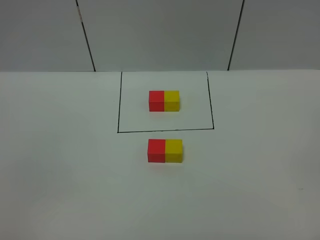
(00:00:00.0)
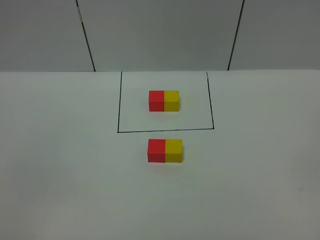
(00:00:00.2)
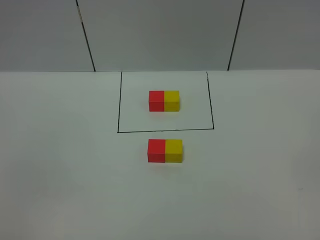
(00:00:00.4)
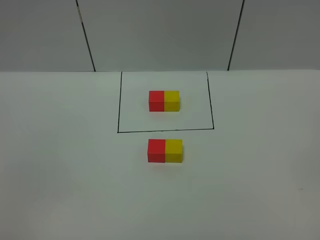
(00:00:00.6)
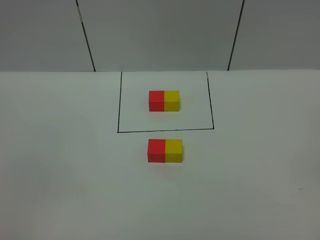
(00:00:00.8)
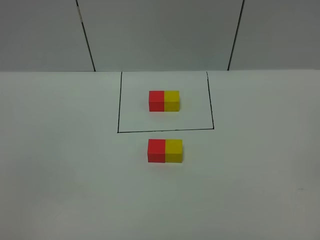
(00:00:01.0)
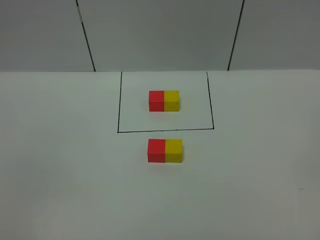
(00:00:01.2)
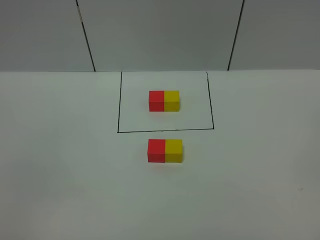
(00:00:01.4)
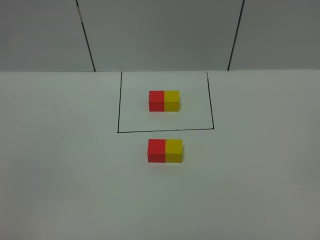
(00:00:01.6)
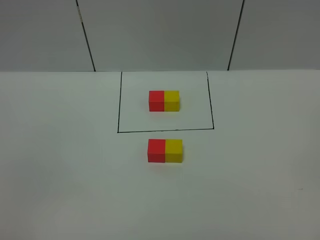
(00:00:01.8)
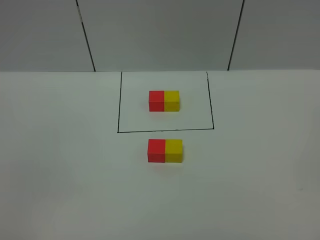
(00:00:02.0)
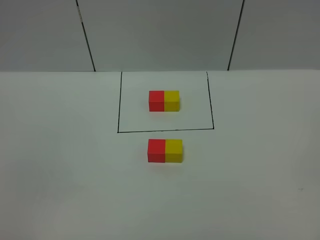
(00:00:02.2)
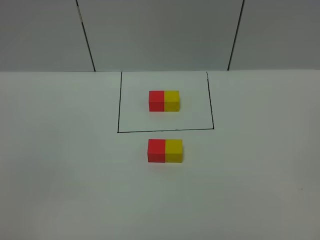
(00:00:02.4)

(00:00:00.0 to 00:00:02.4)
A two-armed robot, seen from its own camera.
Task of the whole recording: According to the building block template in front, assemble the scattered blocks together.
00:00:01.2 - 00:00:02.4: Neither gripper changes place.
